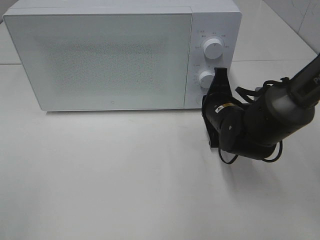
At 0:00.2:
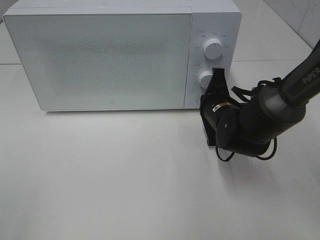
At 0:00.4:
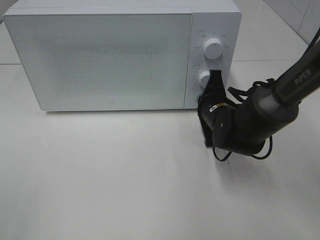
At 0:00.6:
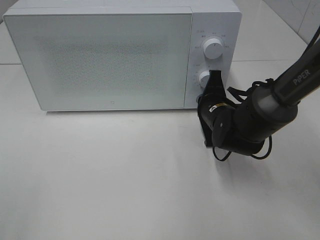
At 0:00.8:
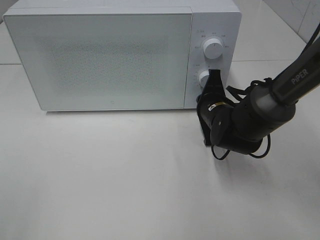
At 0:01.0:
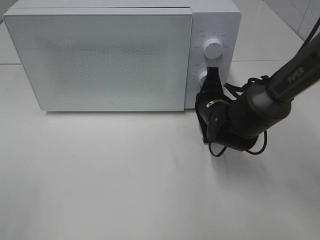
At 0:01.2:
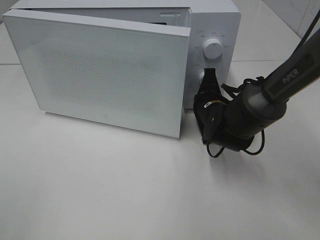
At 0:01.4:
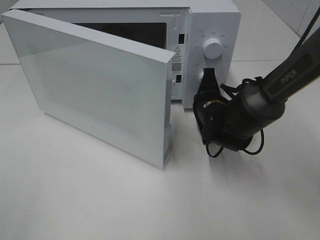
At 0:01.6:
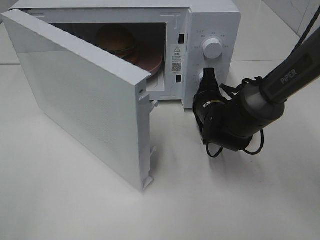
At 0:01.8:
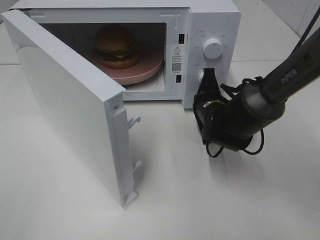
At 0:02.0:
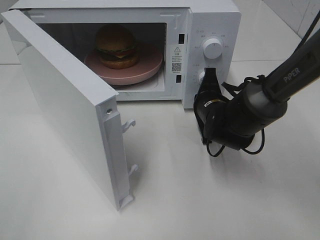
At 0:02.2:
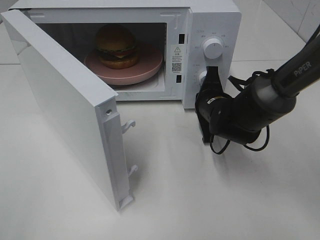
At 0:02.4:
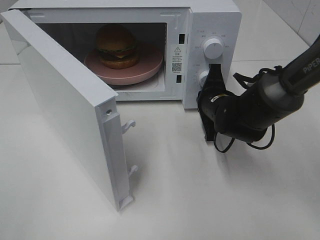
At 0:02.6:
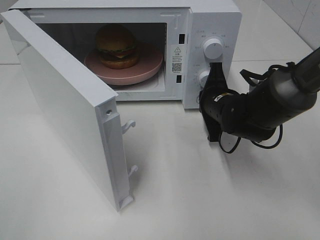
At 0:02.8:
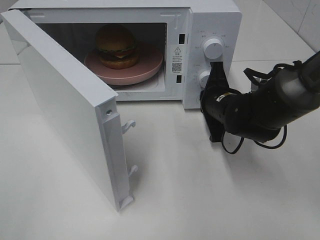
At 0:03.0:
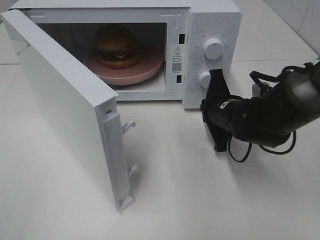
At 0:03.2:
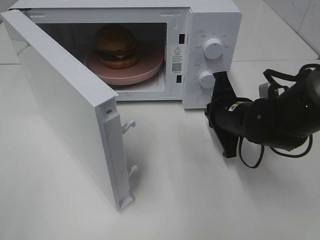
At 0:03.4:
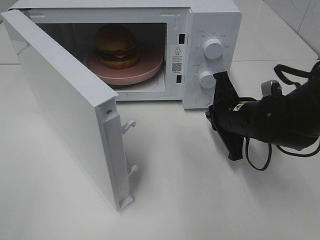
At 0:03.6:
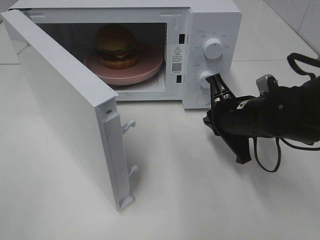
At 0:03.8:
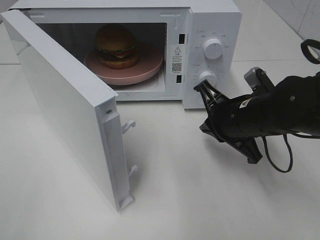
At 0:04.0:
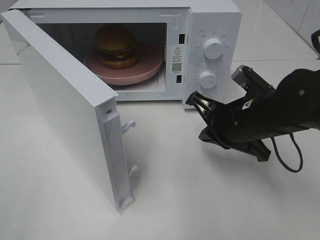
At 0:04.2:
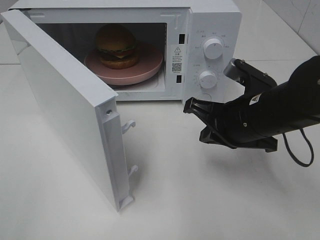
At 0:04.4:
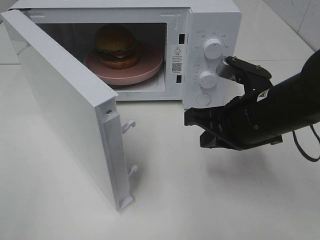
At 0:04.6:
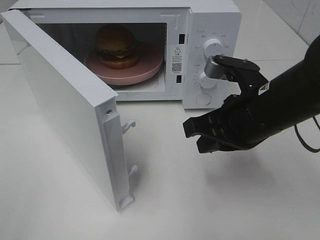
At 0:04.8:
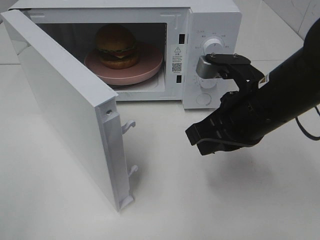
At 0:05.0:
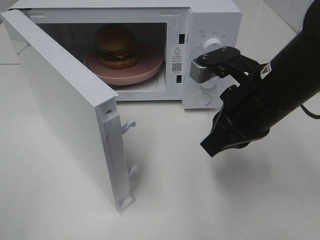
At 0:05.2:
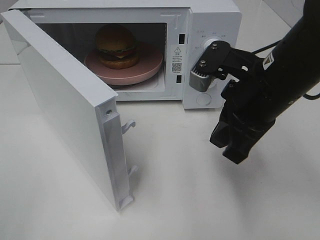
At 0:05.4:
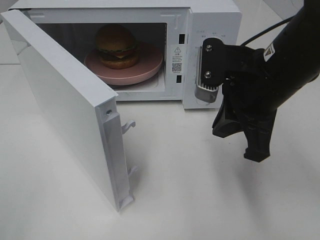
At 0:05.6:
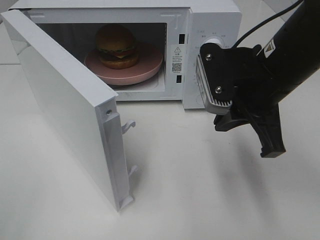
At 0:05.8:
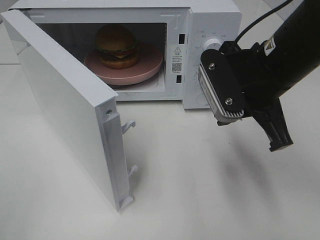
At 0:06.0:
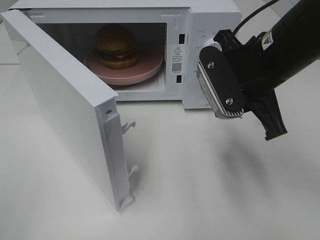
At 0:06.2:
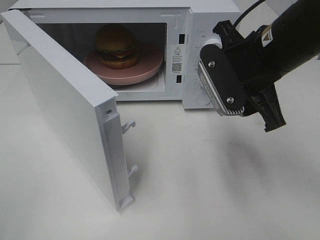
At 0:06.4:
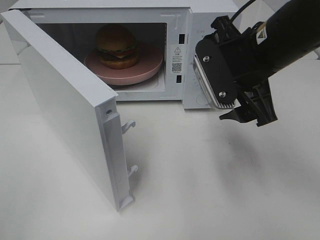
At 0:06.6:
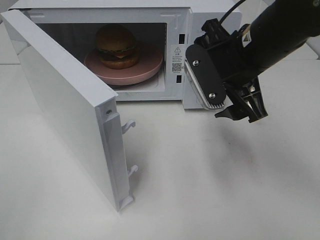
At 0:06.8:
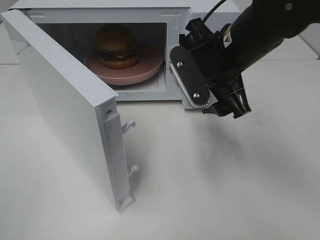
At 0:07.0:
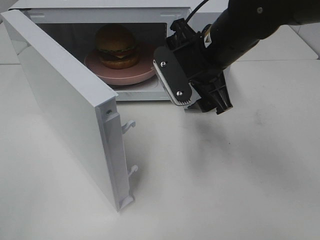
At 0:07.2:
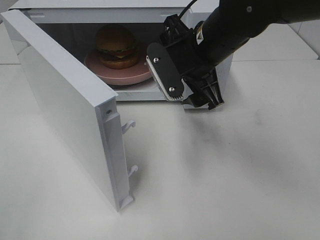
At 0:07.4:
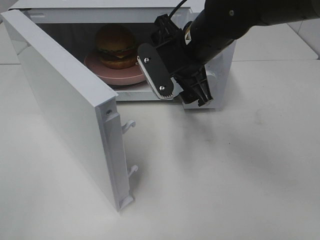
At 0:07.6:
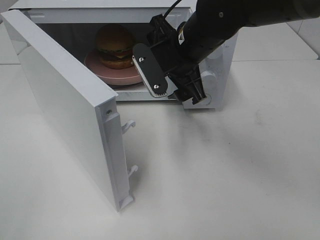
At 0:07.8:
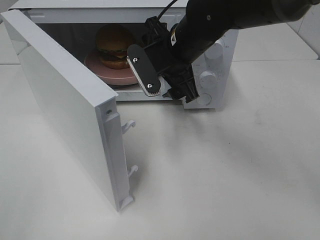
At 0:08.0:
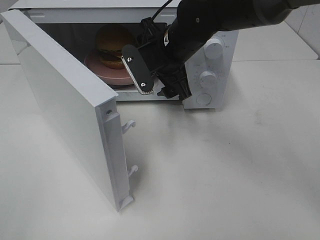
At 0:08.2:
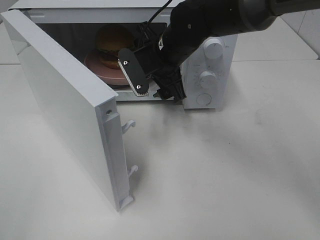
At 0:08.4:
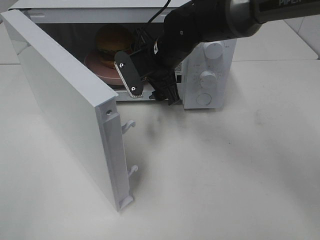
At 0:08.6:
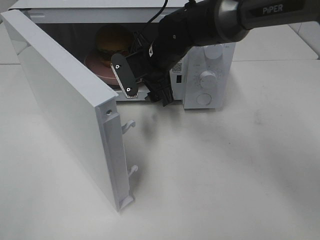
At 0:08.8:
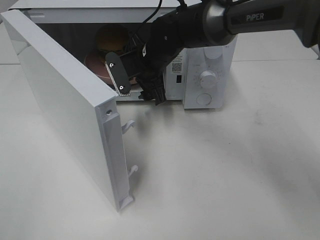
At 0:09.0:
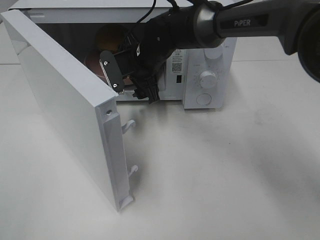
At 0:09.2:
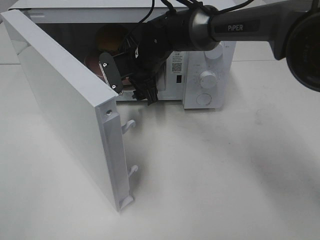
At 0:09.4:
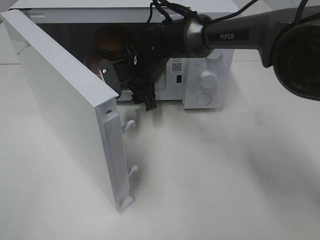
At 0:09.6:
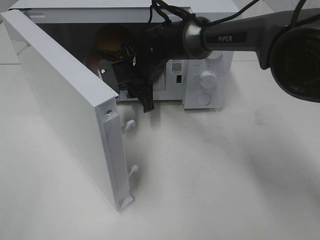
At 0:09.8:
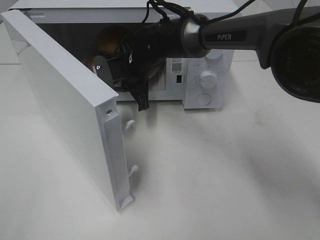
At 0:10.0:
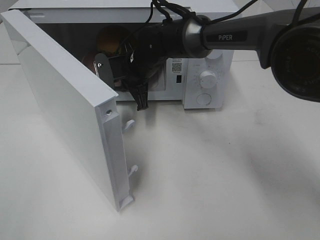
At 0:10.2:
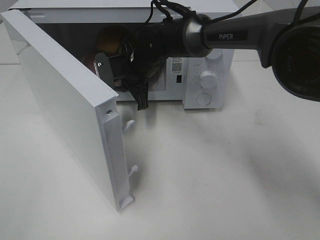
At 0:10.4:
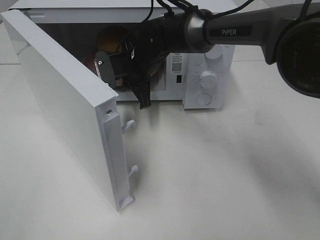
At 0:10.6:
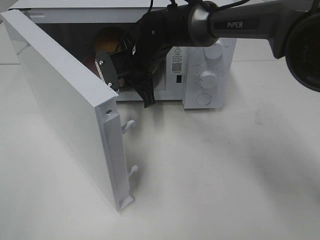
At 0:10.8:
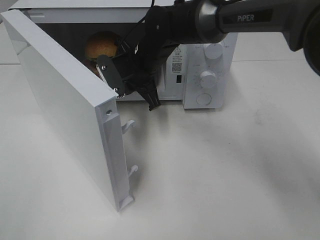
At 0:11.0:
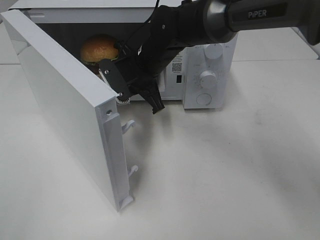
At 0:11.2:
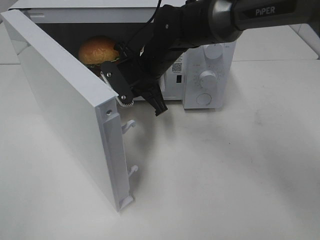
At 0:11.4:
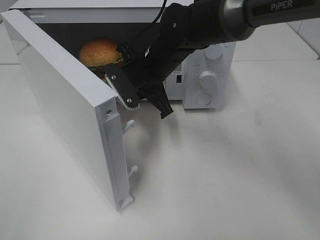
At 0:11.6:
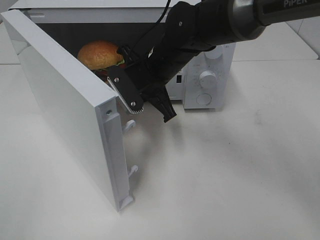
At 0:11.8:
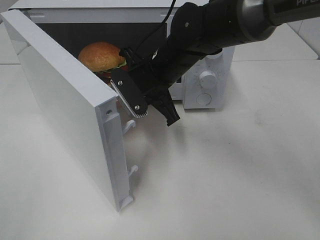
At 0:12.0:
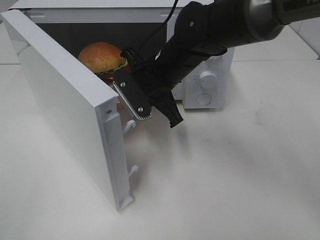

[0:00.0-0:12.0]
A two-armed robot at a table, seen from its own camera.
Task of the whole recording: Heat the burger.
Step, 0:00.0 to 0:02.8: Right hand: press the switch.
Step, 0:03.0 to 0:09.8: Right hand: grab the plate with the hamburger.
0:03.0 to 0:04.4: The right gripper goes roughly 10 cm backward and upward.
0:04.4 to 0:06.0: The right gripper moves upward, approximately 5 cm, and opens its fingers.
0:06.0 to 0:07.6: The right gripper heads forward and to the left, covering approximately 10 cm, and opens.
0:07.6 to 0:09.0: The right gripper is displaced forward, to the left and downward by roughly 10 cm.
0:09.0 to 0:10.4: The right gripper closes up.
0:10.4 to 0:12.0: The right gripper shifts approximately 10 cm backward.

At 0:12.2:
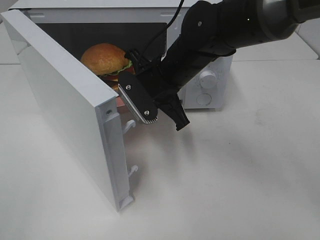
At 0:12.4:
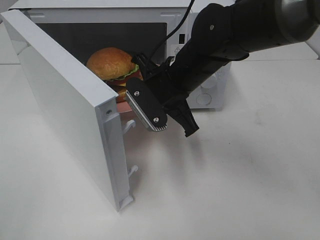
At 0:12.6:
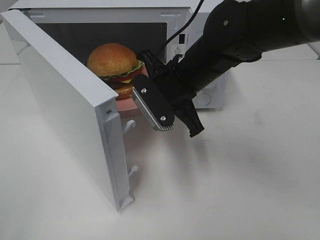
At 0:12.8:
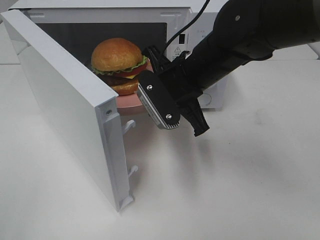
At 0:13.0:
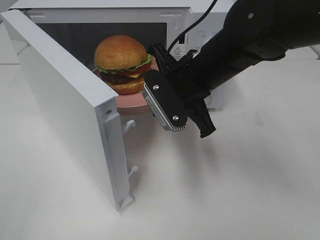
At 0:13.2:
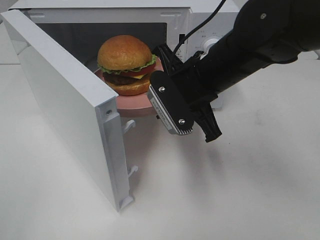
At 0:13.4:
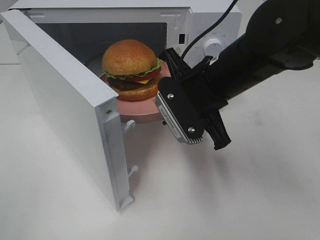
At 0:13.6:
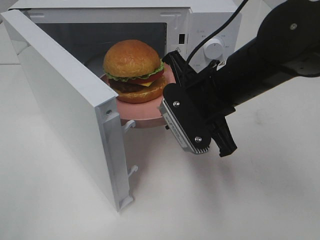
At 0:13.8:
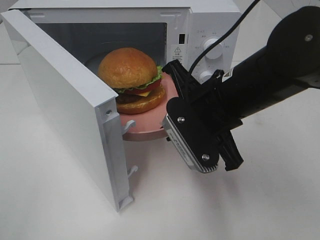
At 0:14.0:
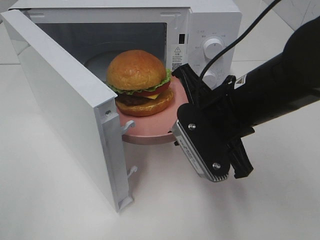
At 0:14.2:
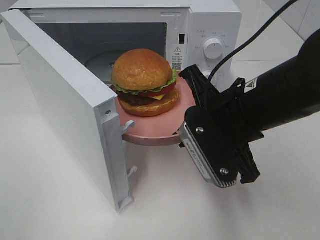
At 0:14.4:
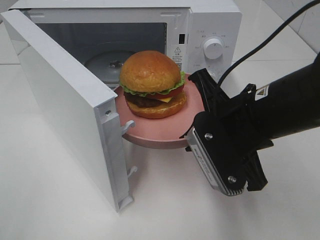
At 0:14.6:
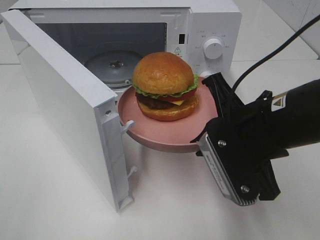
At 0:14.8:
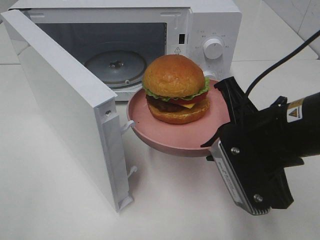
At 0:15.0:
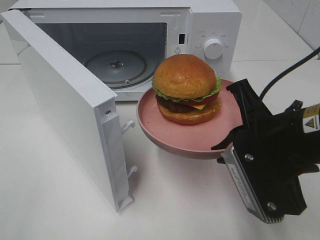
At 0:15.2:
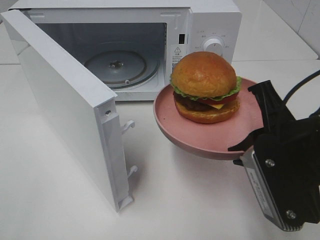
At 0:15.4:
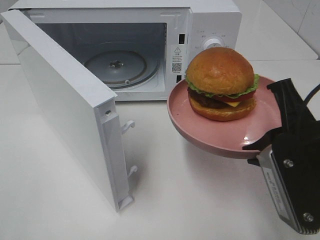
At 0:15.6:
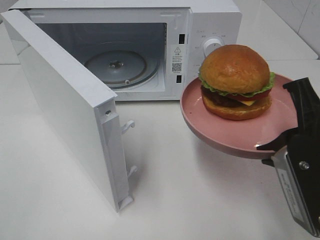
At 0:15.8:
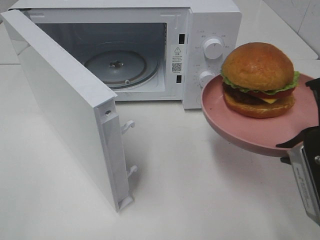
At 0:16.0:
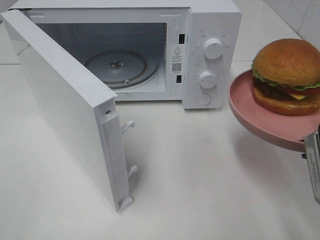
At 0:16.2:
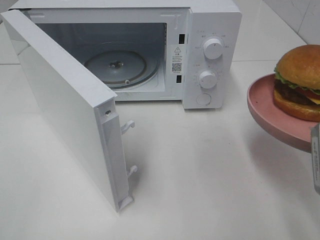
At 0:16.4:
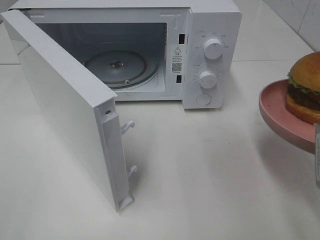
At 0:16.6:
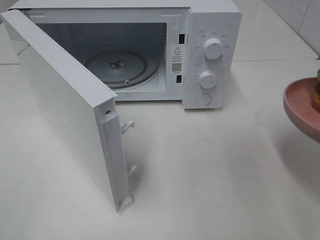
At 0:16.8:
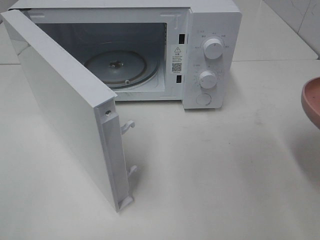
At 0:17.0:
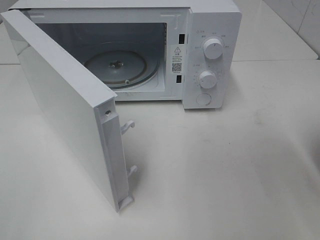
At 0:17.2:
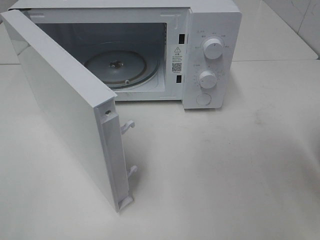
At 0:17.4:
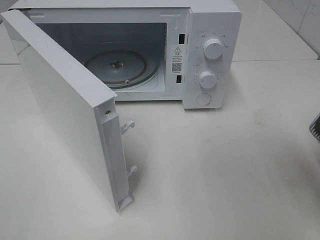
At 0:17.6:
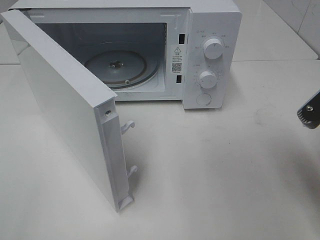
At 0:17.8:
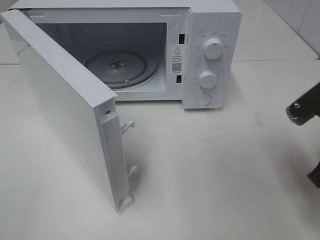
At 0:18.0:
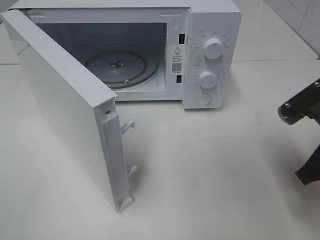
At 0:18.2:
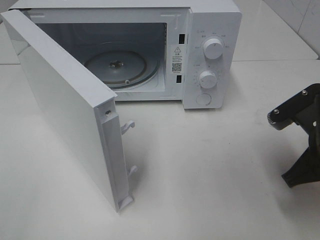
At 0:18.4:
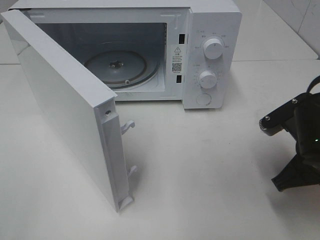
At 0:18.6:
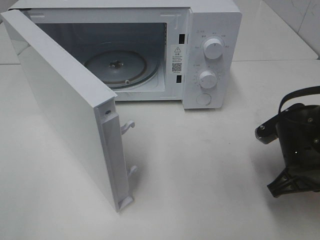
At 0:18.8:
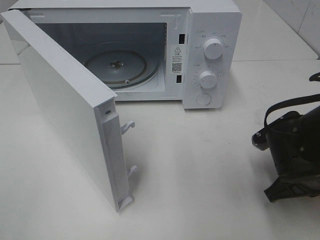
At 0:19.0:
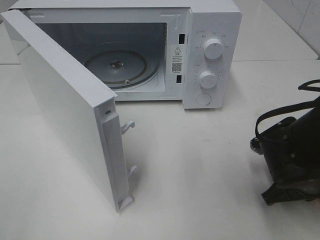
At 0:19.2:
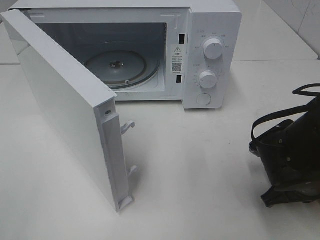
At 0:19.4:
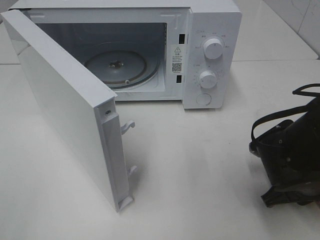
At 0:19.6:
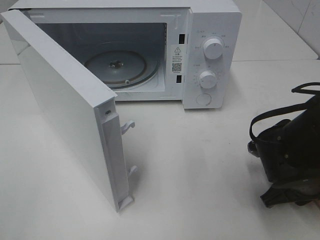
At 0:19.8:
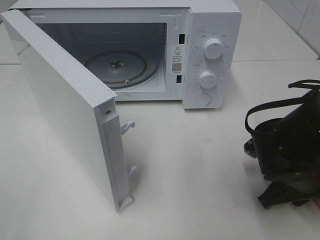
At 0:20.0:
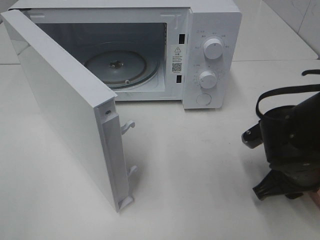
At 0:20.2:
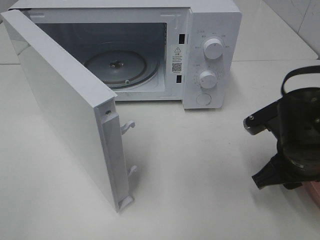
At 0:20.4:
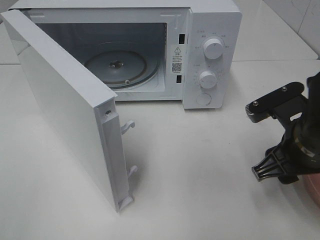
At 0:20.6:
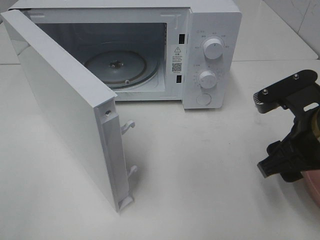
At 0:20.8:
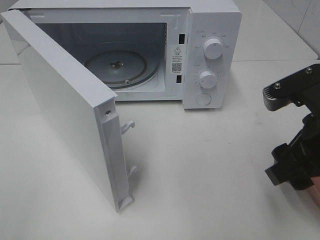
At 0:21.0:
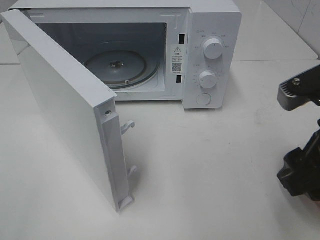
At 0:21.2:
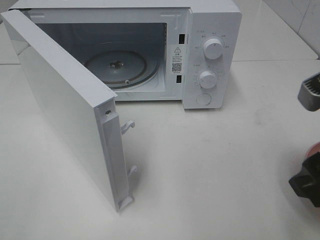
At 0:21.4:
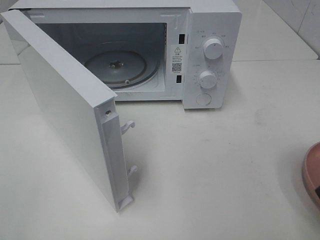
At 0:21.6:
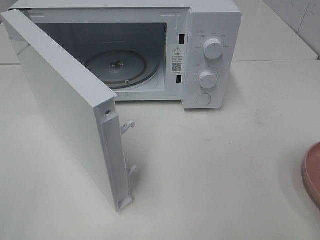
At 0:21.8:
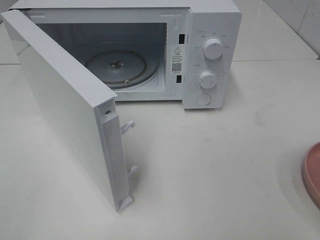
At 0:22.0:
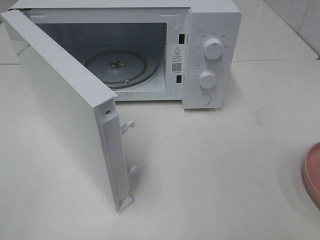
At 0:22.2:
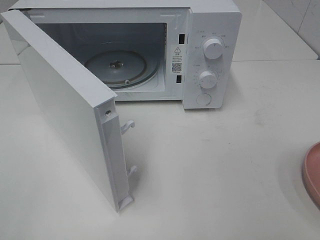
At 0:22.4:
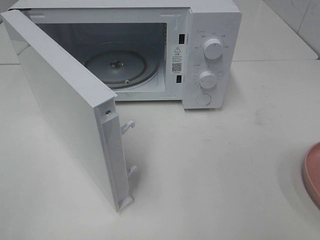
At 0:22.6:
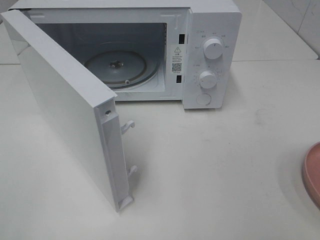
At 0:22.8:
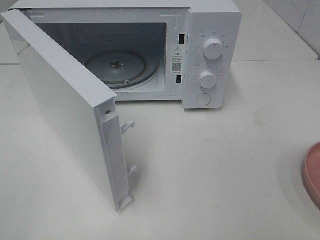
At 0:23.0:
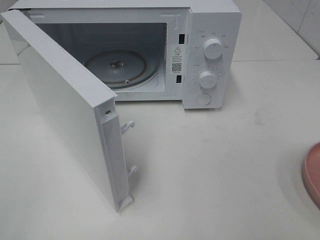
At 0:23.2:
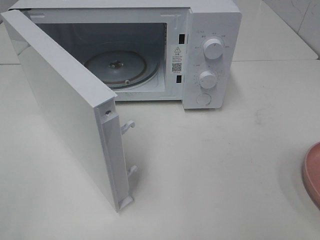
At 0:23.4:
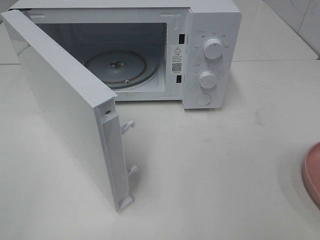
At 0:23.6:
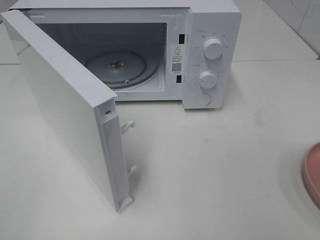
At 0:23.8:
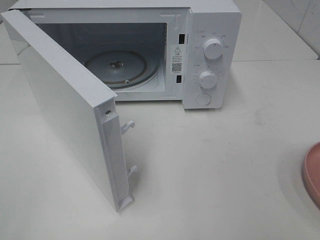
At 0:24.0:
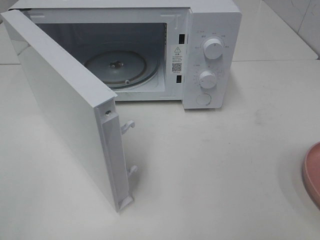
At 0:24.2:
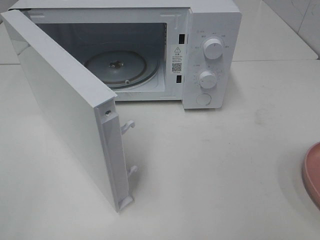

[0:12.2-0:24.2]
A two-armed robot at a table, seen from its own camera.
Task of the whole recording: Heat the burger.
Step, 0:12.2 to 0:19.6: Right hand: place the plate on the table.
0:12.2 to 0:13.8: The right gripper heads backward and to the right, covering about 10 cm.
0:13.8 to 0:15.2: The right gripper goes some 10 cm backward and to the right.
0:15.2 to 0:16.6: The right gripper is displaced to the right by roughly 5 cm.
0:16.6 to 0:18.2: The right gripper goes some 10 cm downward and forward.
0:18.2 to 0:19.8: The right gripper shifts roughly 10 cm downward, and opens its fingers.
0:19.8 to 0:21.2: The right gripper shifts roughly 20 cm upward and backward.
0:21.2 to 0:22.6: The right gripper shifts roughly 15 cm backward and to the right.
